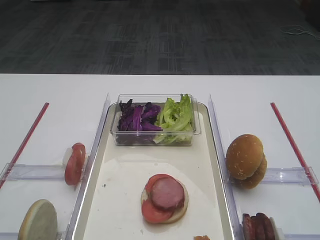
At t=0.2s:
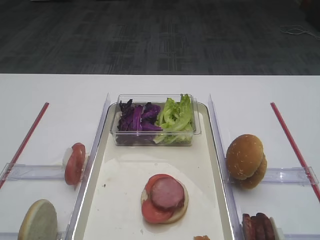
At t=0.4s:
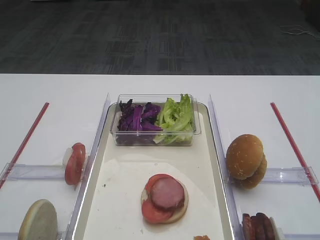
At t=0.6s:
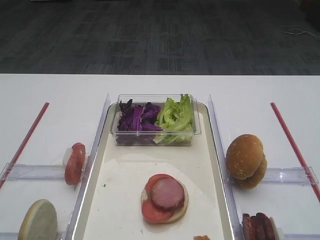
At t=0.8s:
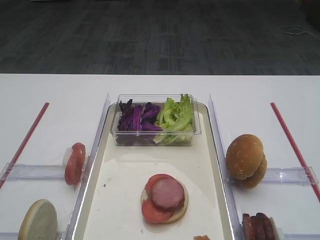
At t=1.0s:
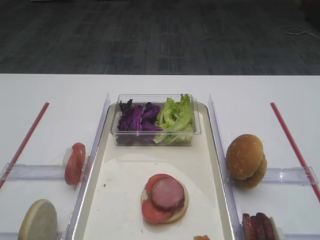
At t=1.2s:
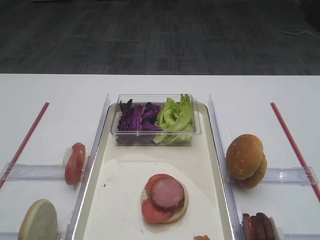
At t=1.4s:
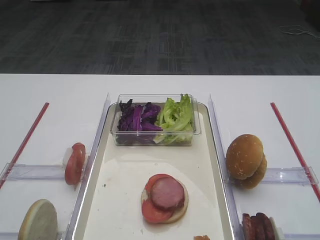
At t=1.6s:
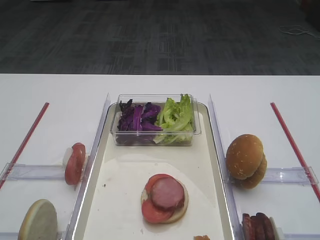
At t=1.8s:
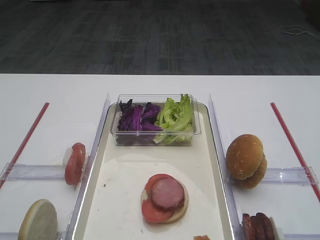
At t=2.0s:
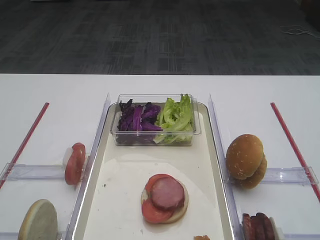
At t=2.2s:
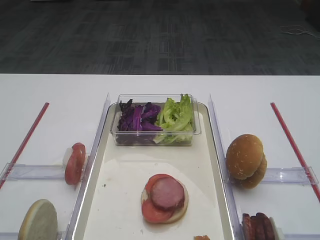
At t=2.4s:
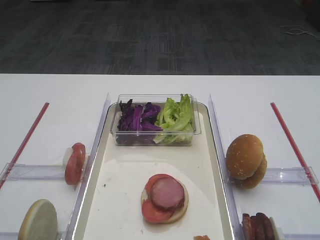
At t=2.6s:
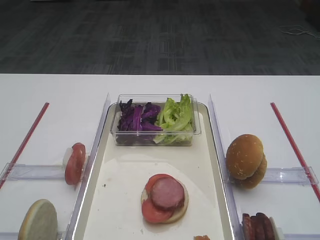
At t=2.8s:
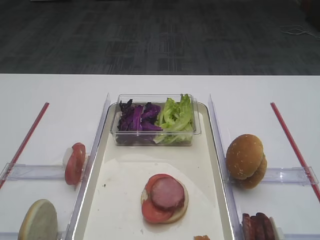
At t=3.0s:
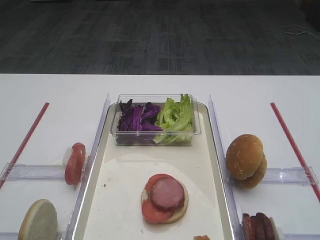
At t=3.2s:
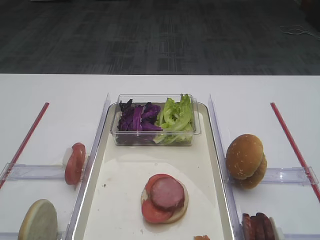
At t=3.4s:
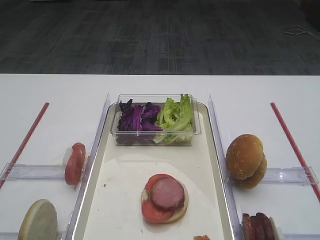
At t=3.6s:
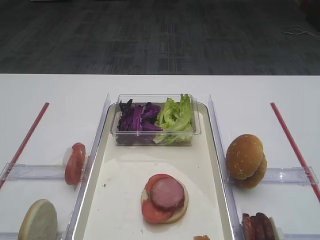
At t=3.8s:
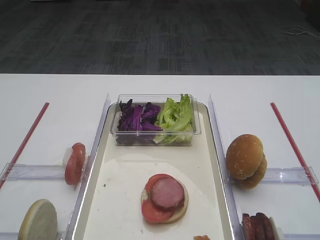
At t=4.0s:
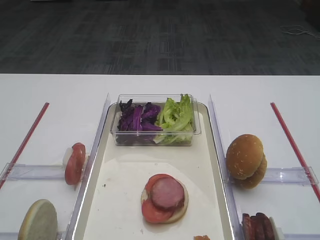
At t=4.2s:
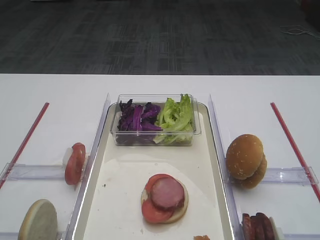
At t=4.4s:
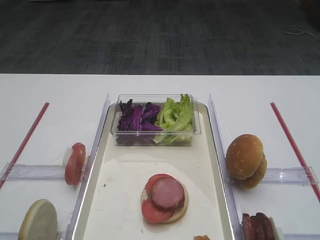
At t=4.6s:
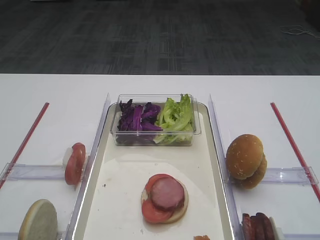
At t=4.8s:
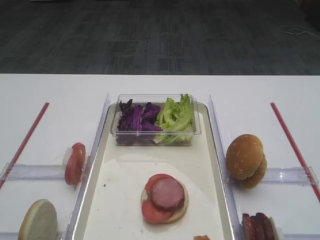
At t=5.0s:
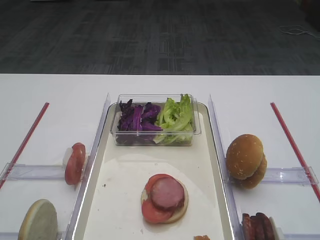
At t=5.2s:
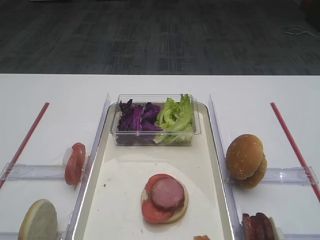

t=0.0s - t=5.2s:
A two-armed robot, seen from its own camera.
t=0.0s - t=5.2s: Neither gripper changes place.

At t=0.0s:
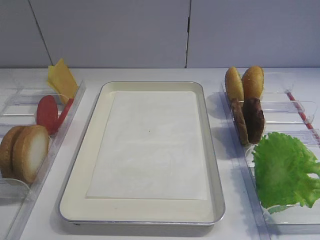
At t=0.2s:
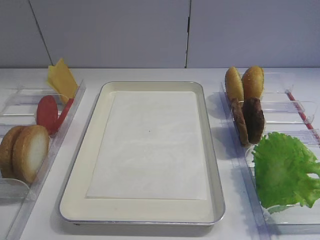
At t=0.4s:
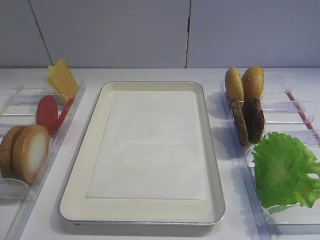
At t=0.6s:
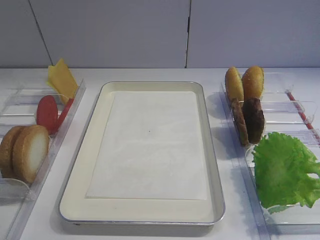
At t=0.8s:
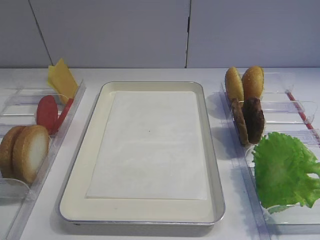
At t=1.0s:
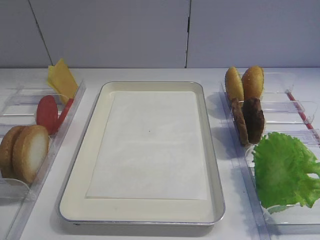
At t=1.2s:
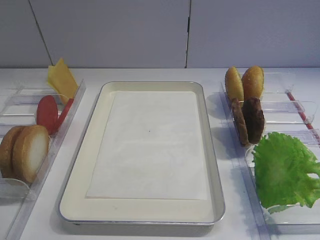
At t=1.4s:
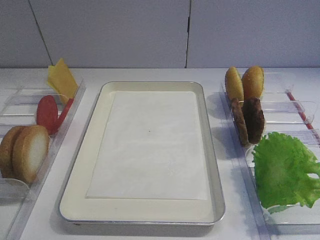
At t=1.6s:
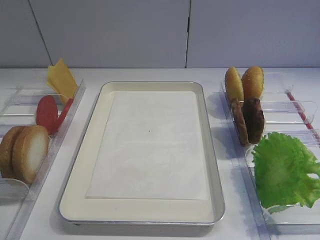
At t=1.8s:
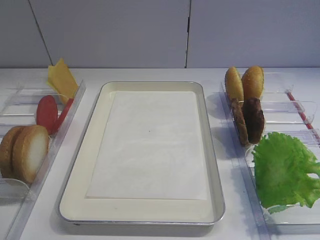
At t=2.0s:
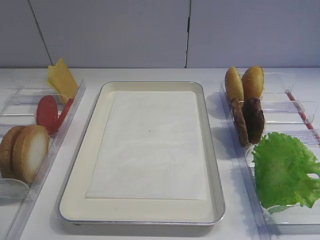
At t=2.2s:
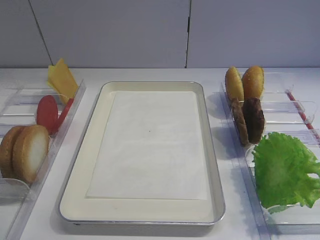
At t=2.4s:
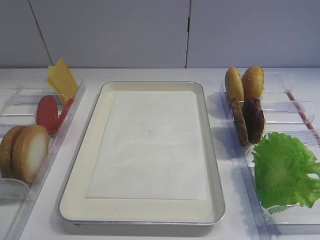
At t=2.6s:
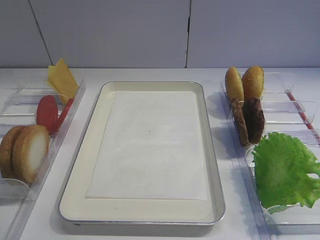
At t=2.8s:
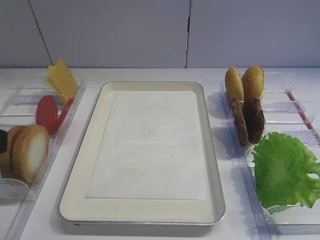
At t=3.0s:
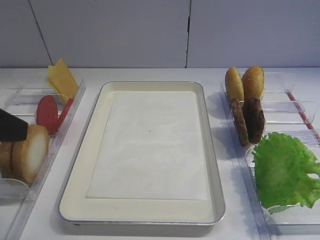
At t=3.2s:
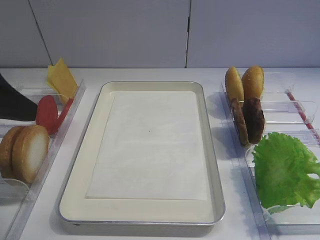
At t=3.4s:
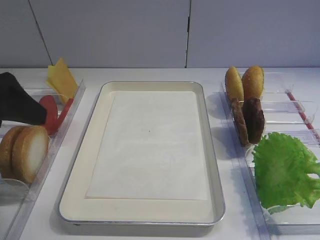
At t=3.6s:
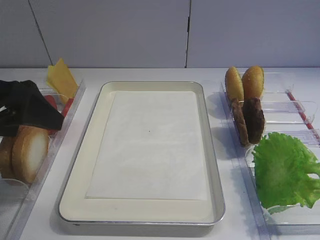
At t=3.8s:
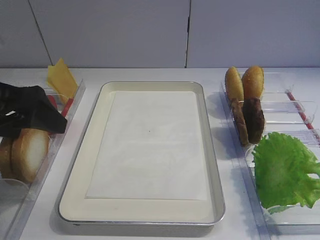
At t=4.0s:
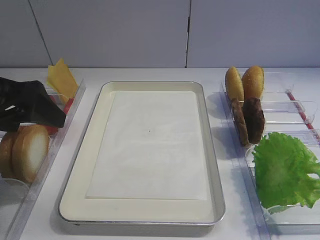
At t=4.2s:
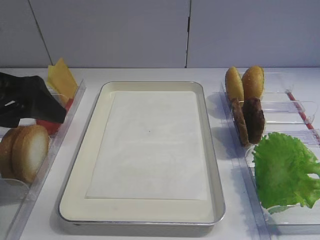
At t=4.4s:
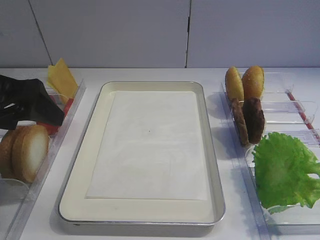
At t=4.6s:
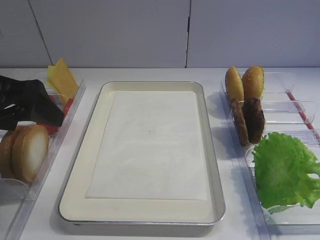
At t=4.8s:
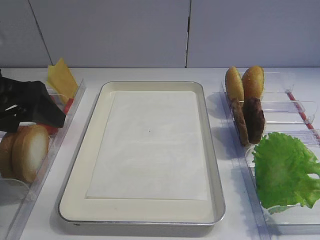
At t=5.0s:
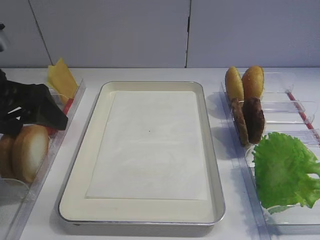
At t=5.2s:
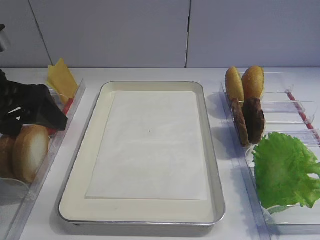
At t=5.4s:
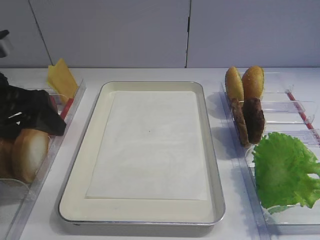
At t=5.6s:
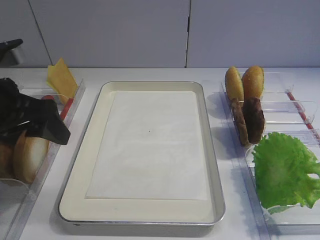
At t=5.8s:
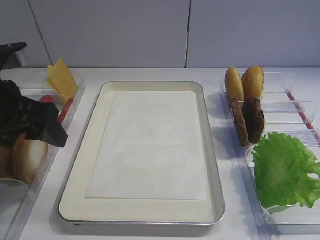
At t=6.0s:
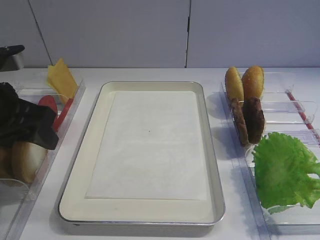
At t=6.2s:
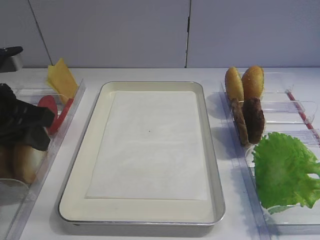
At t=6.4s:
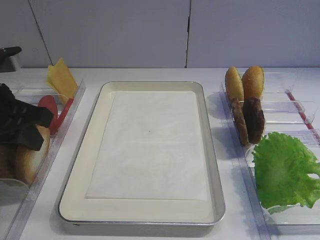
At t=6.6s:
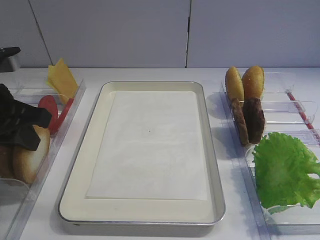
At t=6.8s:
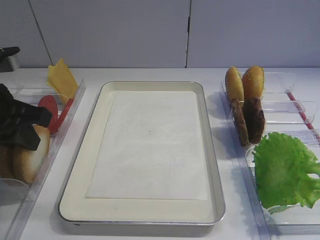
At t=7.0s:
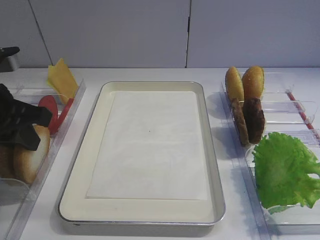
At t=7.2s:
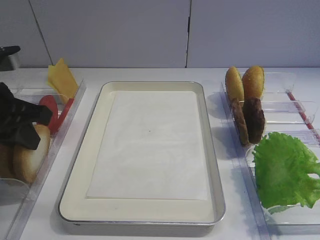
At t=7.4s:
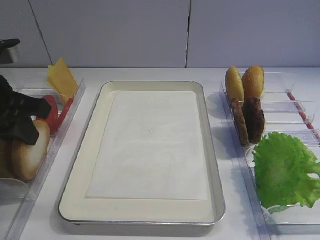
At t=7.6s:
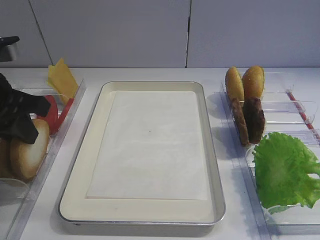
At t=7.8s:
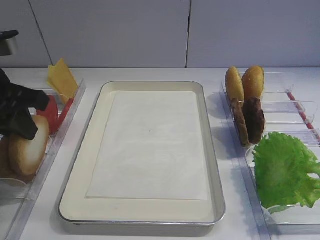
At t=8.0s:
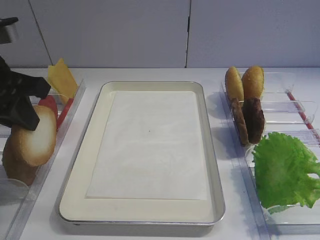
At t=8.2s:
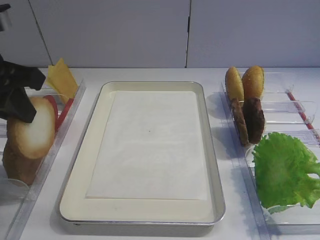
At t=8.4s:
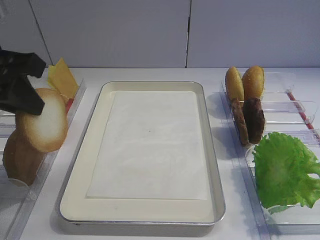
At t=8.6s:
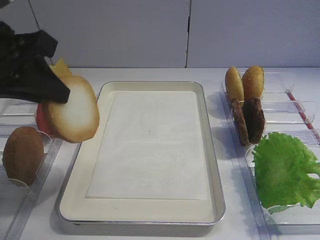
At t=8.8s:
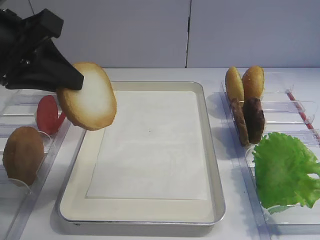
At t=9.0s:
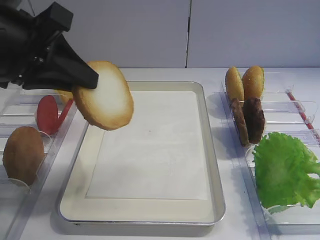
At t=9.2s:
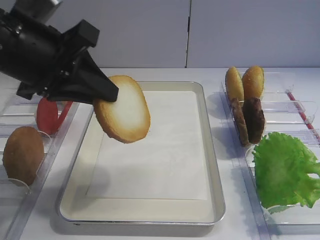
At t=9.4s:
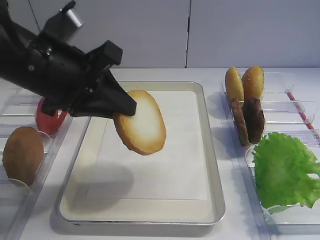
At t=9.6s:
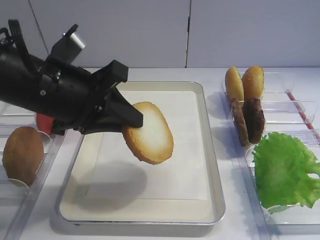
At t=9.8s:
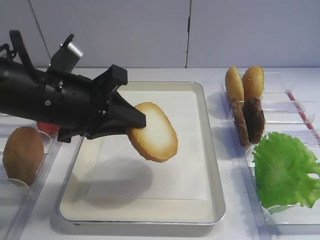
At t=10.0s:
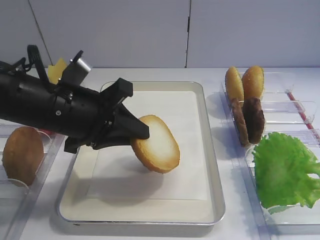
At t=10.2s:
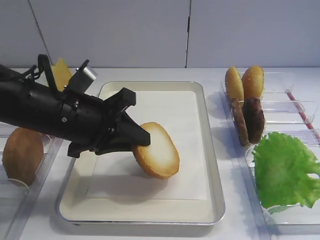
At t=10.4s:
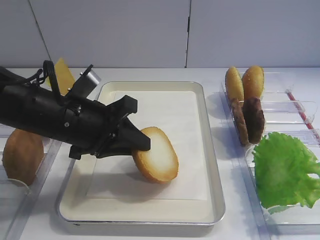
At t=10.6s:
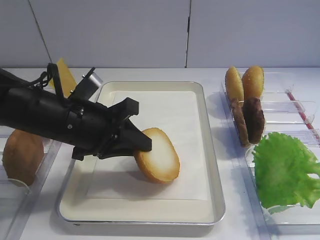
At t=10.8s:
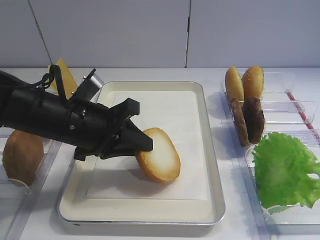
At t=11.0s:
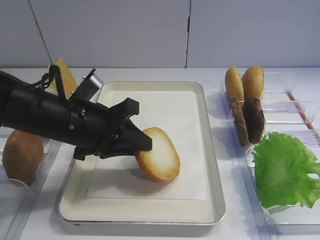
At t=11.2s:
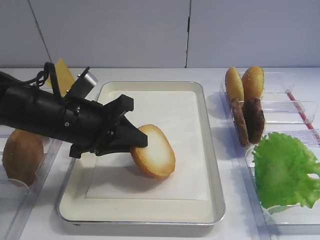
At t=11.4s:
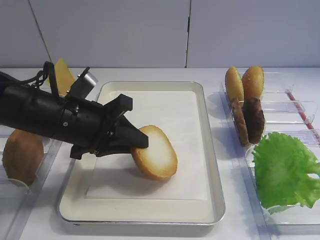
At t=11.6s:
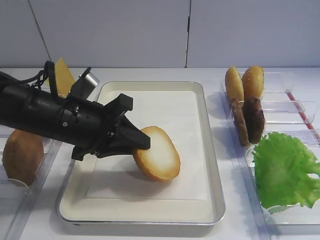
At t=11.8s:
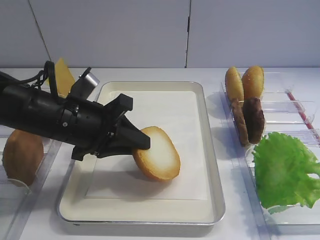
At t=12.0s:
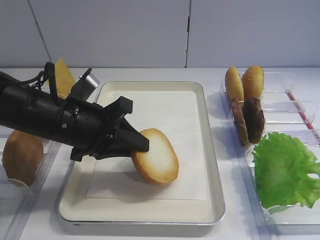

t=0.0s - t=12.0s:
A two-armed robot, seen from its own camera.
Step, t=0.0s - t=8.2s: Pick up the bread slice with the left gripper.
t=1.6s - t=3.0s: The left gripper shifts roughly 15 cm forward.
t=3.0s - t=4.4s: The left gripper travels forward by approximately 10 cm.
t=4.4s - t=6.0s: The grippers stay close to where they were, moving slightly.
t=6.0s - t=7.6s: The left gripper closes up.
t=7.6s - t=9.0s: The left gripper goes approximately 5 cm upward.
t=9.0s - t=10.4s: The left gripper shifts some 15 cm downward and to the right.
t=10.4s - t=12.0s: The two grippers keep their place.

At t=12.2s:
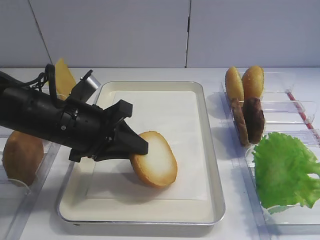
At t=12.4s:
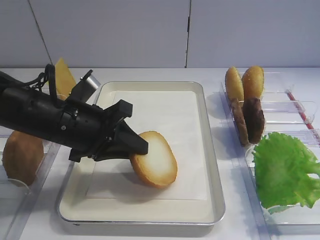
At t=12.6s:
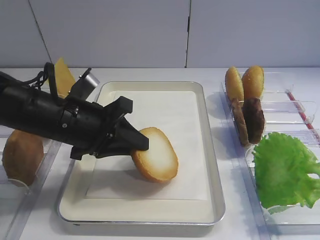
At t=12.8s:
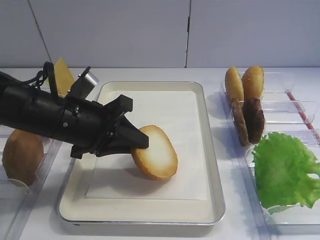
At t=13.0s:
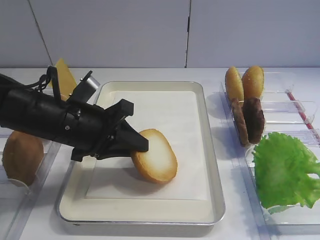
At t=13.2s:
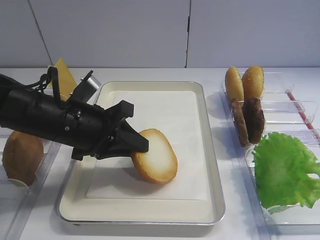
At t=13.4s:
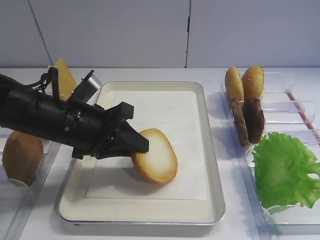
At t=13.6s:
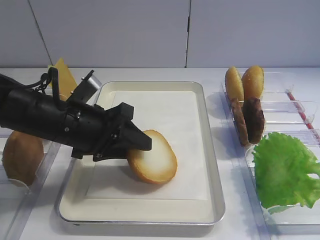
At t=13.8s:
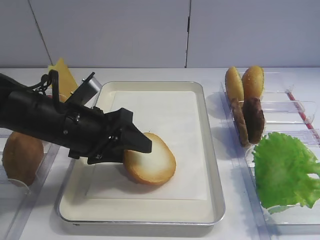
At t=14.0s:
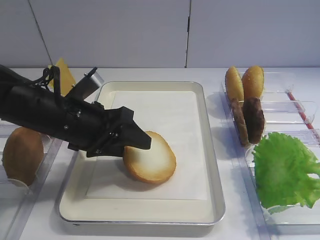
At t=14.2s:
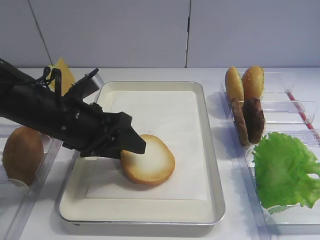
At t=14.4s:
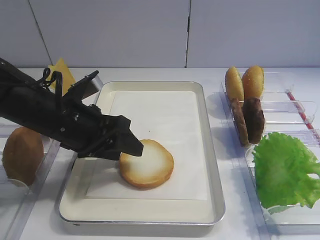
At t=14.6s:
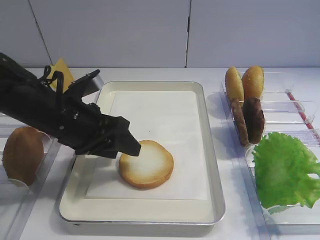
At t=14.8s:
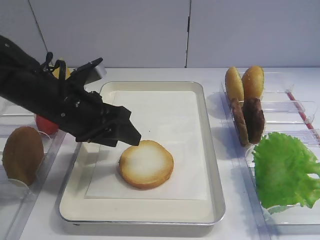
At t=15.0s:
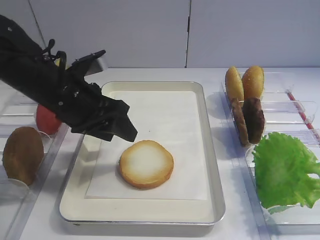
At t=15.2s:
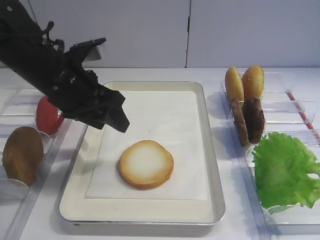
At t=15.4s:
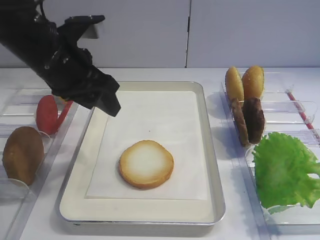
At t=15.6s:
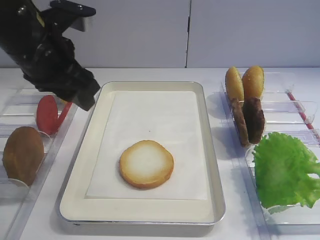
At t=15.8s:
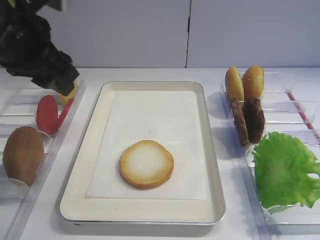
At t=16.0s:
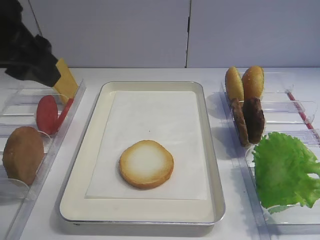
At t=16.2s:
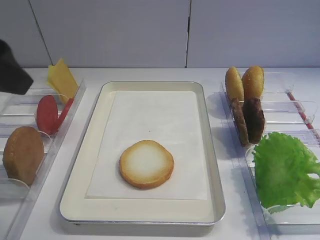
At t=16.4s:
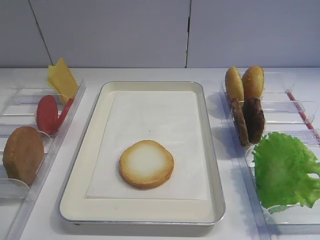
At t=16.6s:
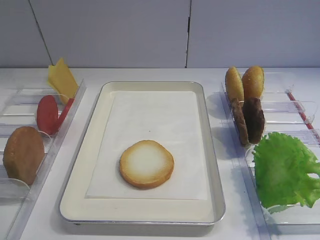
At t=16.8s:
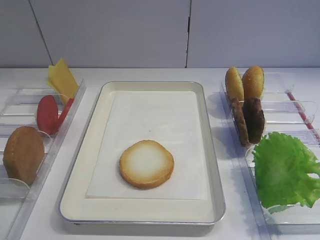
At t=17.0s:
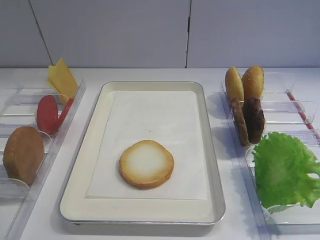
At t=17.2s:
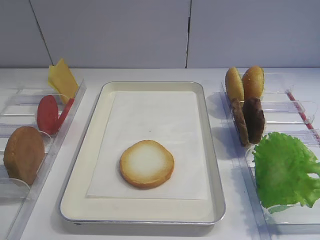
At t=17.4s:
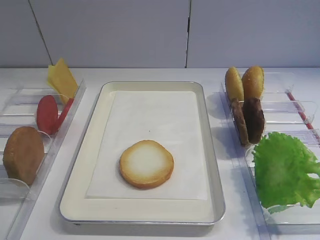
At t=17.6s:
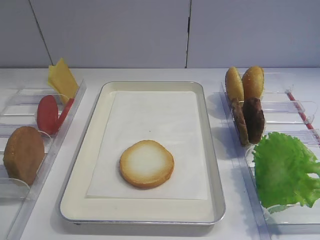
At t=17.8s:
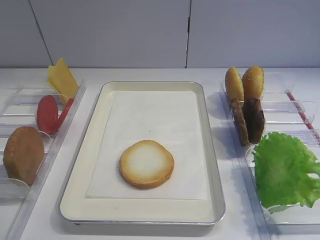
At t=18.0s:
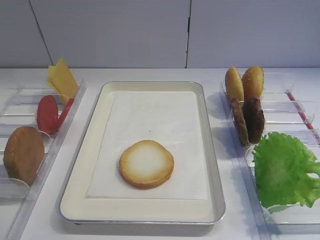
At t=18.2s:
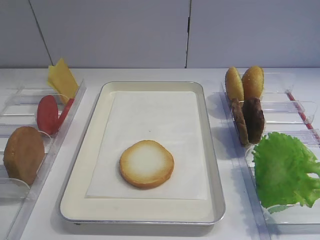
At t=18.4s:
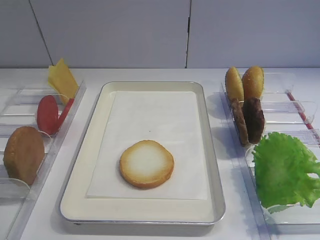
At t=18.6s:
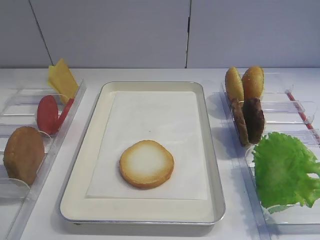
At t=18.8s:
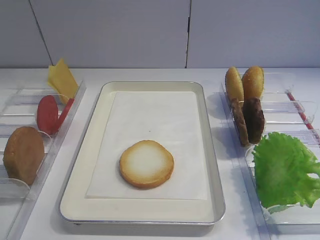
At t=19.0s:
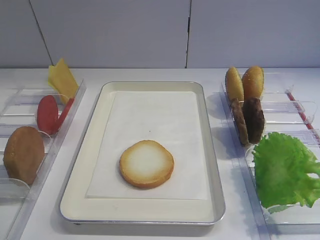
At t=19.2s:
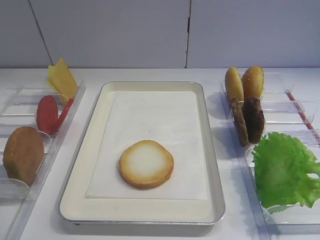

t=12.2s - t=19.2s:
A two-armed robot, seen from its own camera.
Step, t=12.2s - t=15.0s: Place the bread slice on the tray with the left gripper.
t=12.2s - t=13.6s: The left gripper opens its fingers.
t=15.0s - t=16.4s: The left gripper goes roughly 25 cm backward, upward and to the left.
